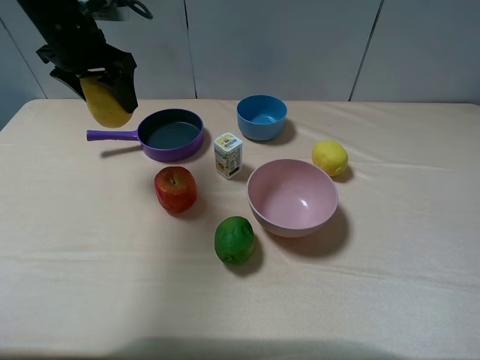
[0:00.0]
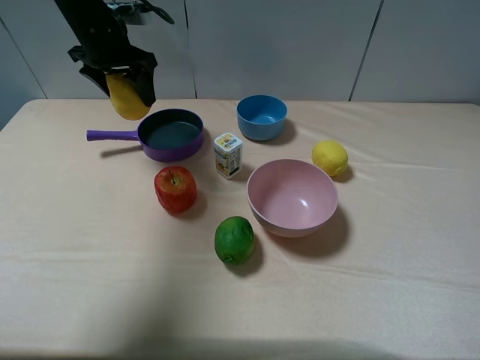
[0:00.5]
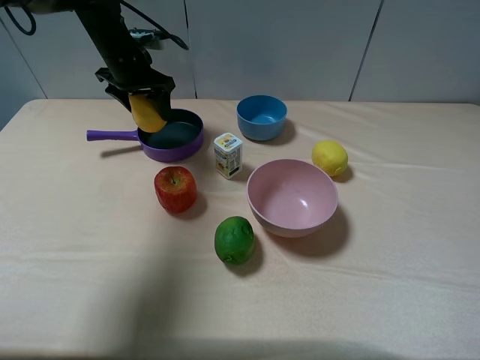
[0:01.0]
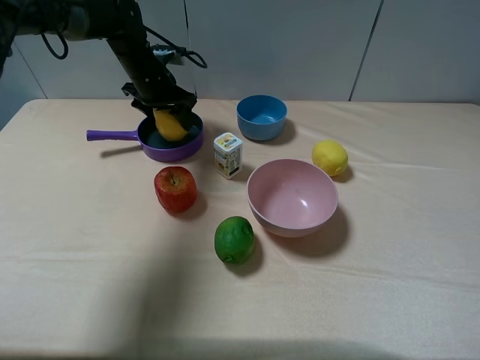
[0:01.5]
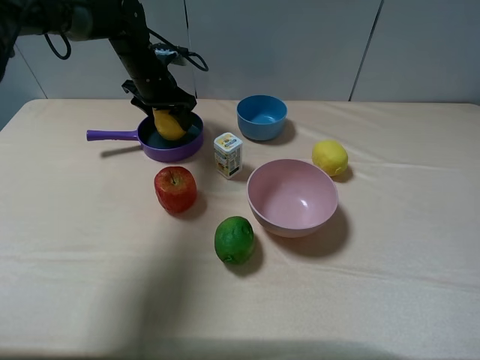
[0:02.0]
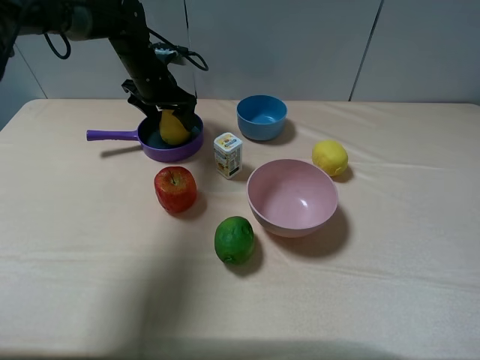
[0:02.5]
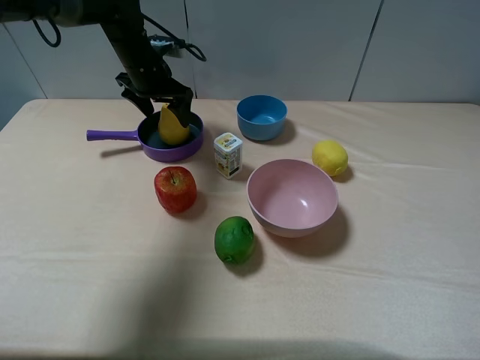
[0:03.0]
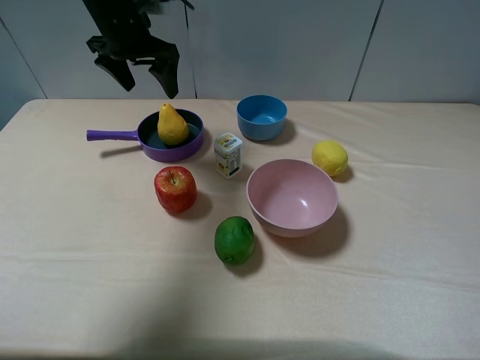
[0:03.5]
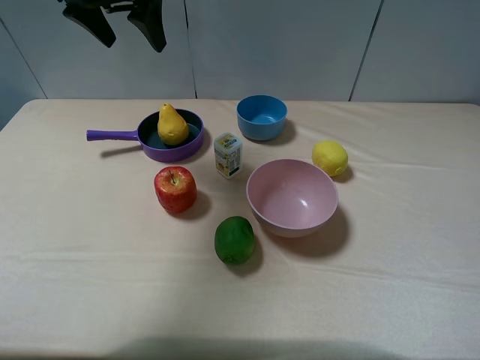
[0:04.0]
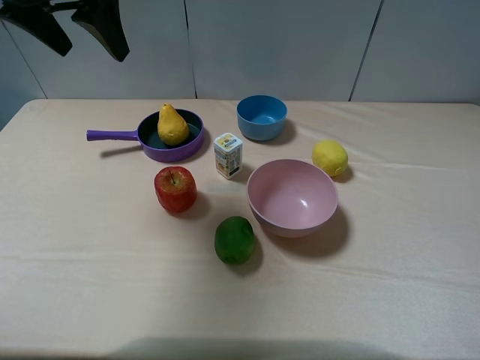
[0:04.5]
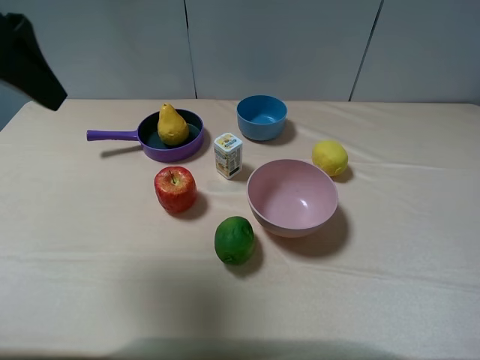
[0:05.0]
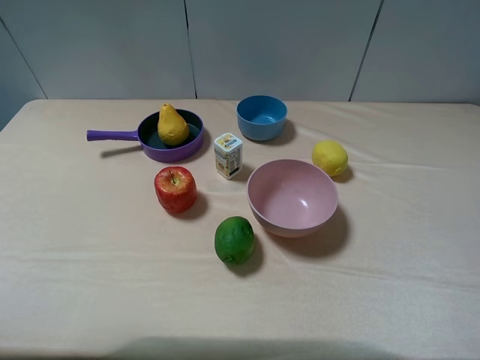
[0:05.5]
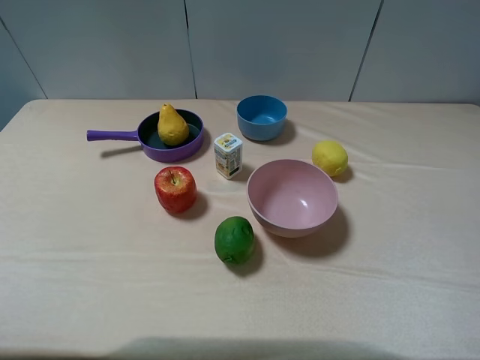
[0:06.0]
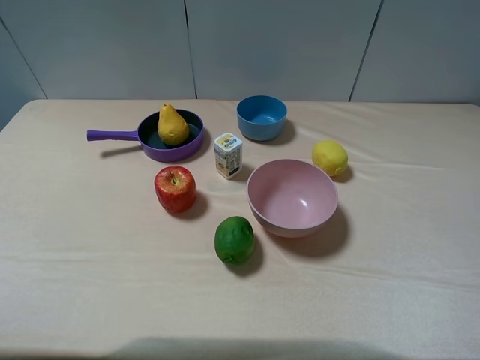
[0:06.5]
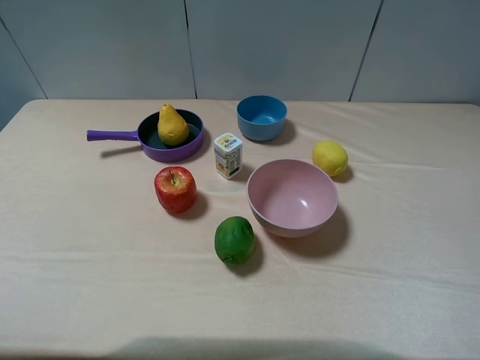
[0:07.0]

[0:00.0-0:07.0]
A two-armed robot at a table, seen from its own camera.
Task of the whole recording: pick up an item with a gripper and place it in a random container on the table.
Step, 0:00.0 to 0:02.5: Place the pear into the purple pot with the left gripper.
0:00.0 to 0:02.0: The left gripper goes approximately 15 cm downward, forward and to the right.
0:02.0 to 0:03.5: The left gripper heads upward, covering roughly 10 cm, and opens its fingers.
0:03.5 to 0:05.0: The left gripper moves backward and upward, some 25 cm, and opens.
0:05.0 to 0:07.0: The left gripper travels backward and downward by about 25 cm.

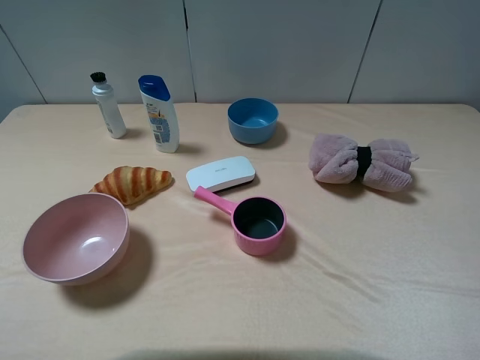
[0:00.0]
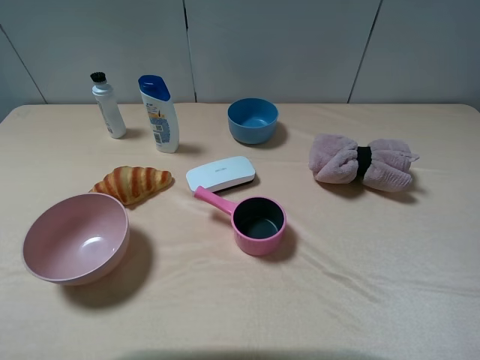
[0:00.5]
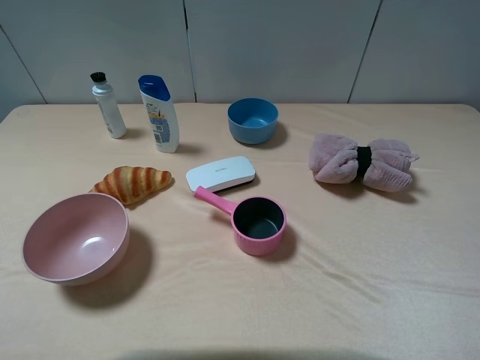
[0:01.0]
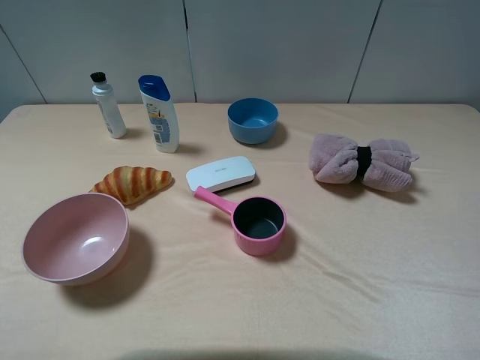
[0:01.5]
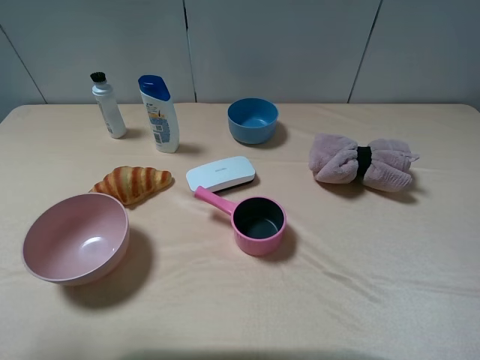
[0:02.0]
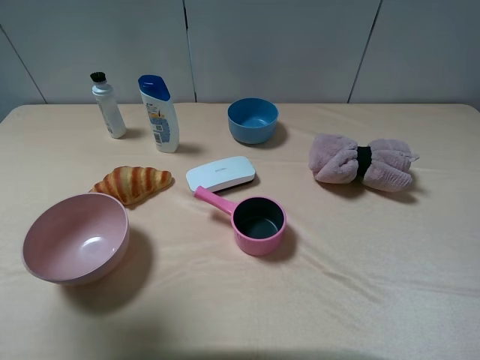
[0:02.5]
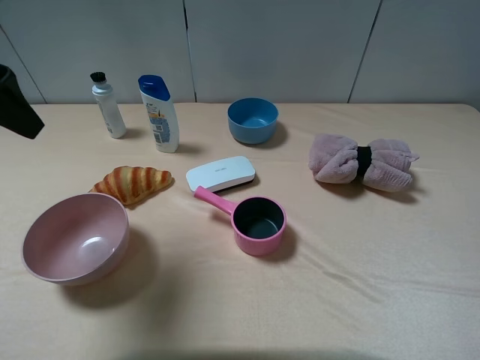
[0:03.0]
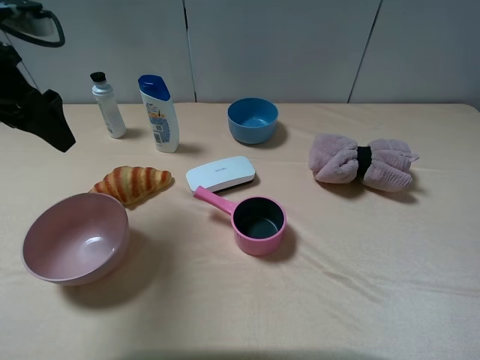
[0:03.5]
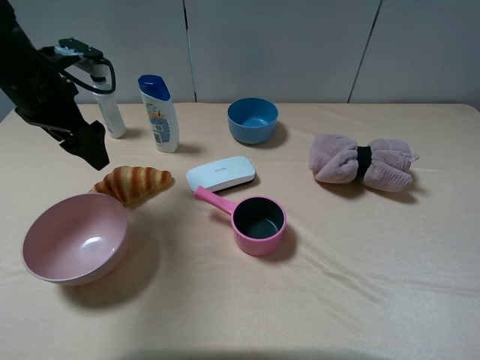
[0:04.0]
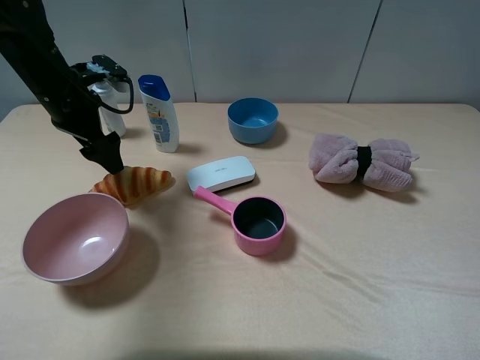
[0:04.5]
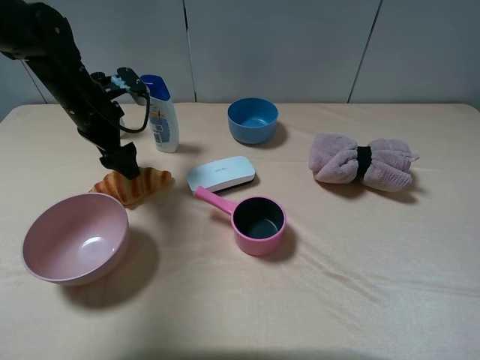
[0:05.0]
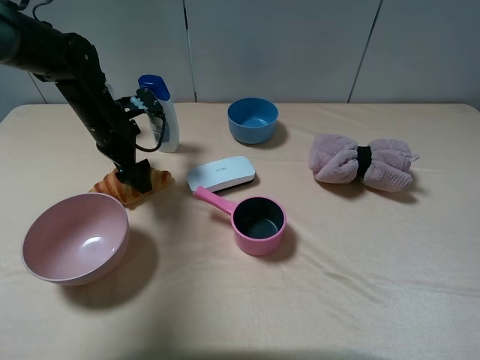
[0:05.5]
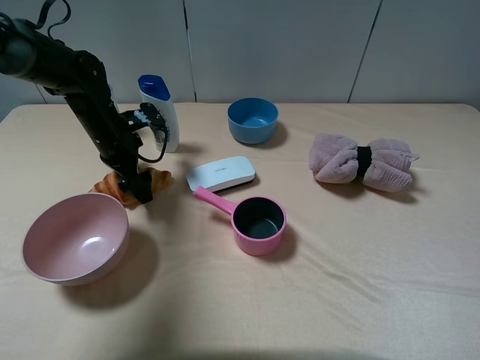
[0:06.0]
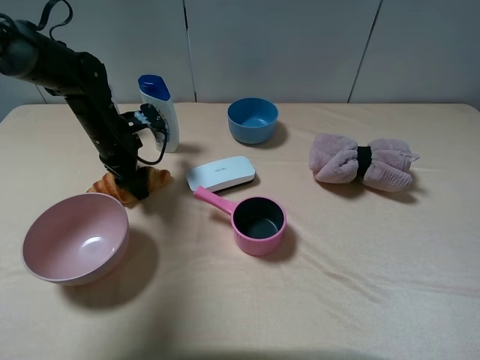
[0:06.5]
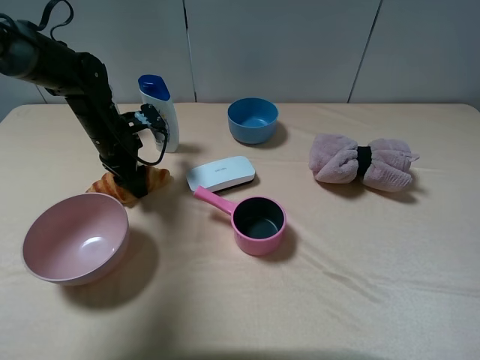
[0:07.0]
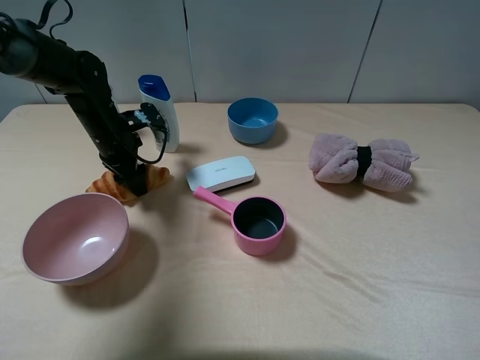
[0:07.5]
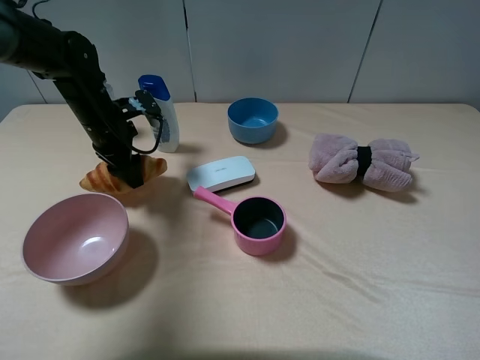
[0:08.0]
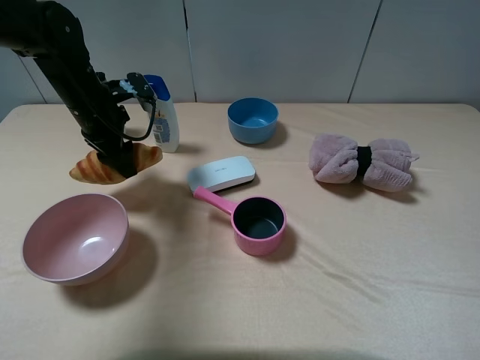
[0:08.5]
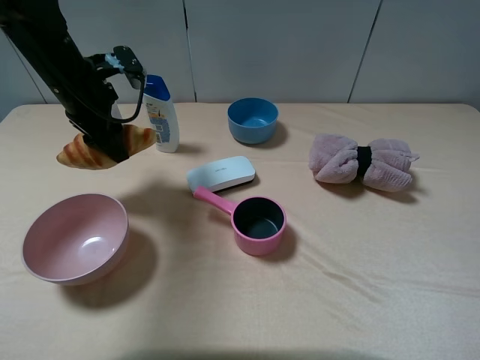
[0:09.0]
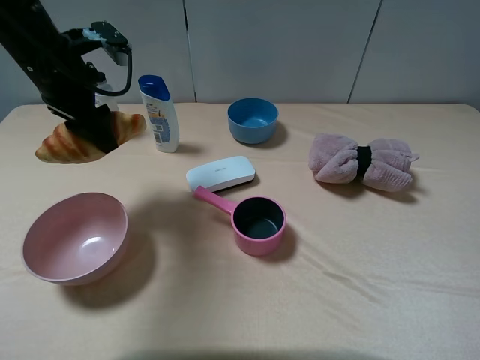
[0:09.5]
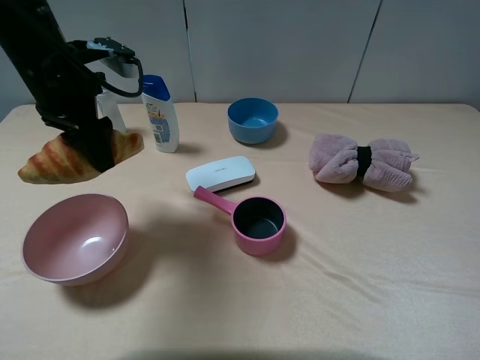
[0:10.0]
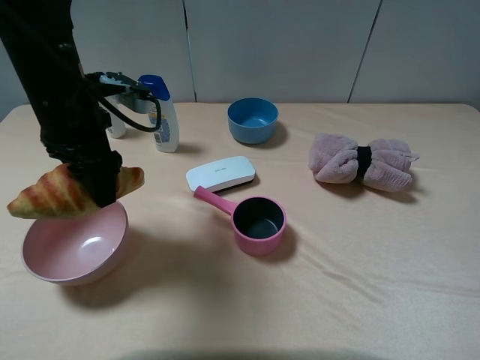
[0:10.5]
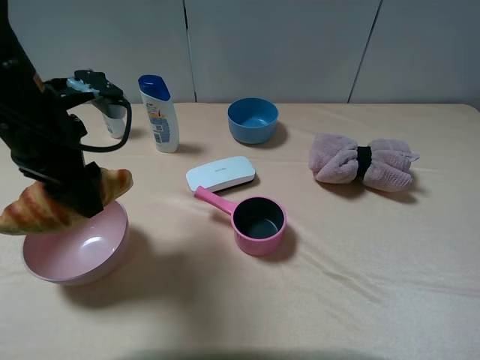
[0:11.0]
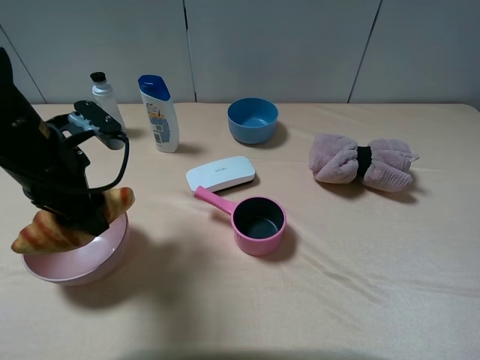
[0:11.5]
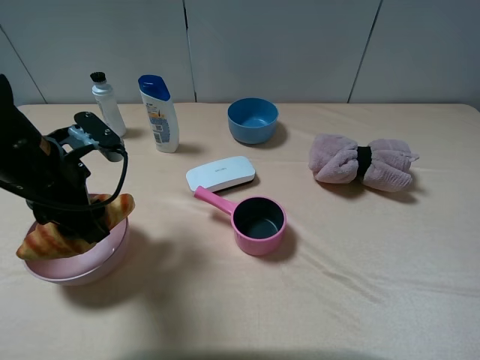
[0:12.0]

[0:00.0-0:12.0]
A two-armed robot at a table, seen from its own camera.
Task of the whole recording: pick up an item with a gripper and place it in a random container on the table.
Step, 0:00.0 to 0:07.0: Grasp the croissant with the left gripper.
0:00.0 to 0:02.0: The left gripper is displaced forward and upward by some 10 cm.
0:02.0 to 0:04.0: The left gripper moves forward and downward, about 25 cm.
0:04.0 to 0:06.0: The left gripper travels downward and forward by about 15 cm.
0:06.0 to 0:08.0: The left gripper closes up.
0:08.0 to 0:10.0: The left gripper travels upward and backward by some 15 cm.
0:10.0 to 0:12.0: The left gripper shifts some 10 cm backward and downward.

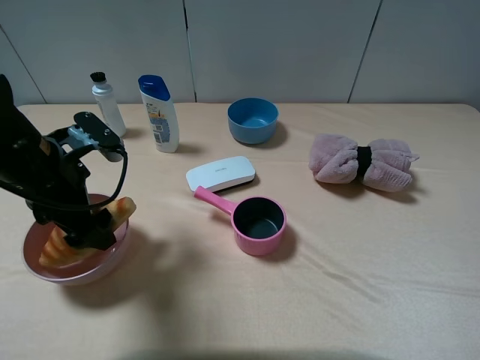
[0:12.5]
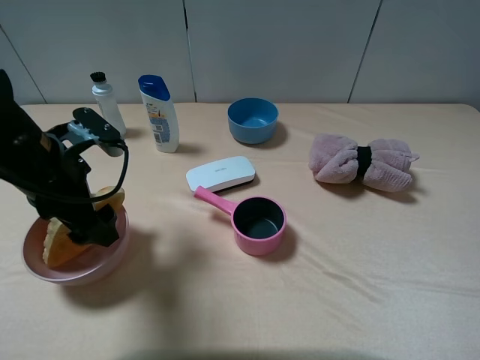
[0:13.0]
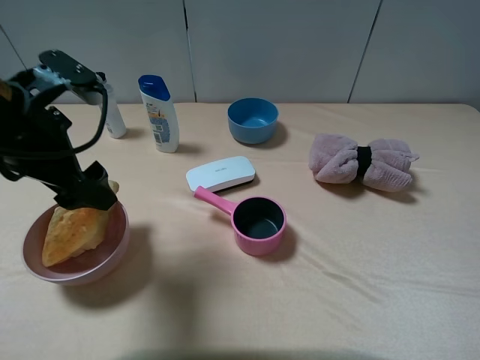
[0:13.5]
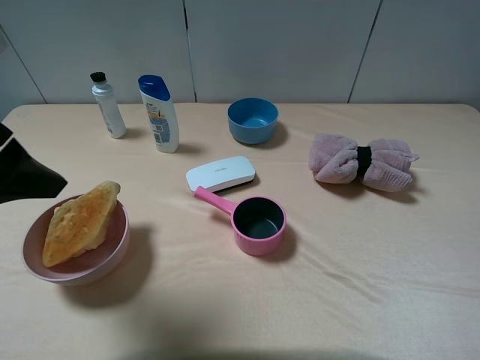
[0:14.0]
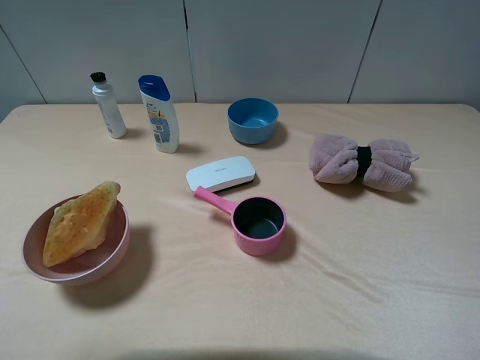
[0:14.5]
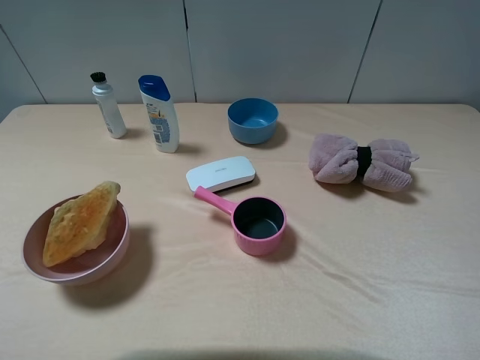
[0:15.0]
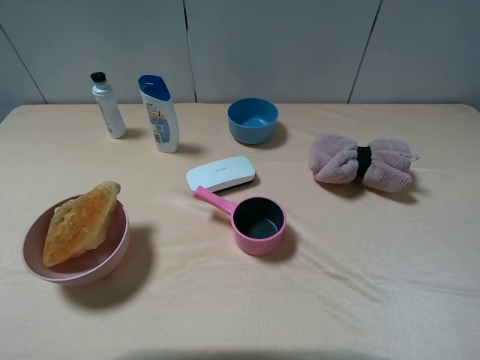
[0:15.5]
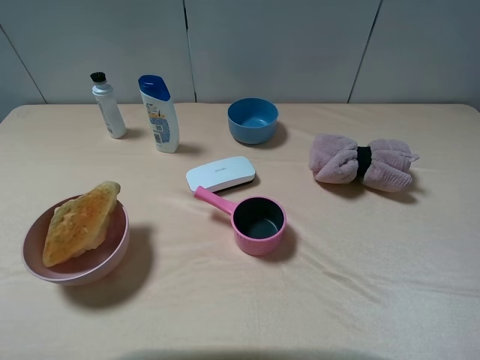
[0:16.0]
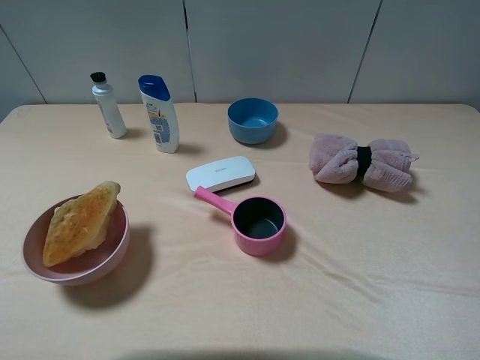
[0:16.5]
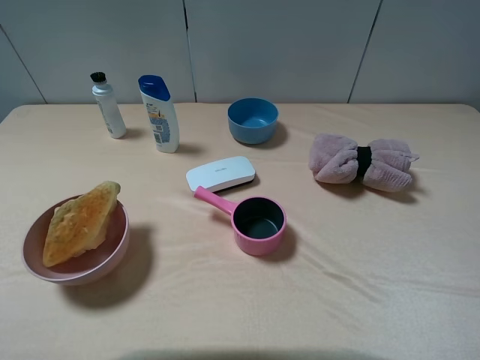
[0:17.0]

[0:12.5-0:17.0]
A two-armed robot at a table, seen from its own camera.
Task of the whole recording: pick up an item with a gripper and place it in a random container on the table.
0:12.5 to 0:14.5: The left gripper is displaced backward, upward and to the left by about 25 cm.
